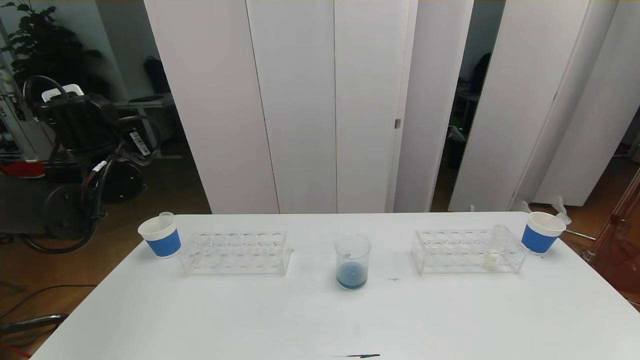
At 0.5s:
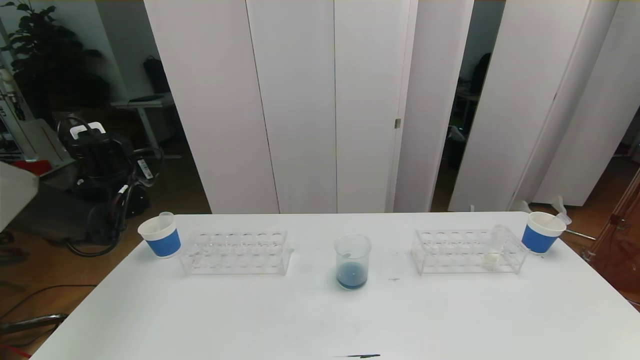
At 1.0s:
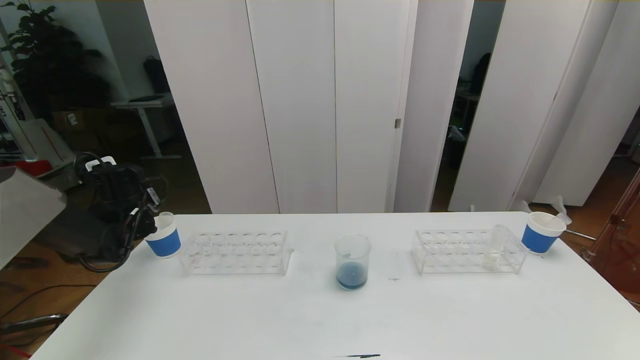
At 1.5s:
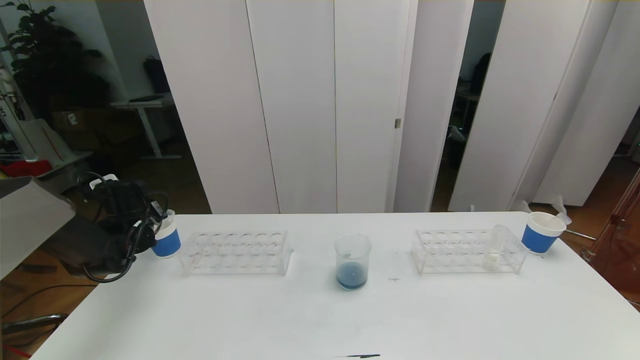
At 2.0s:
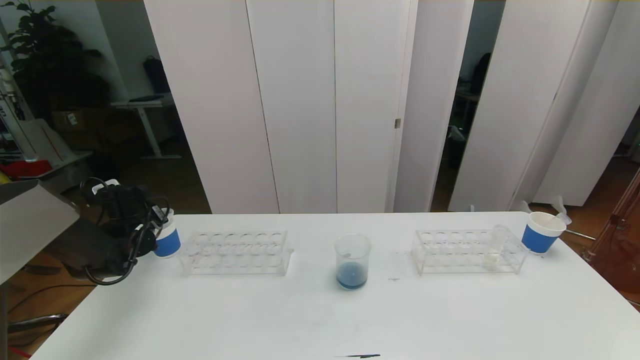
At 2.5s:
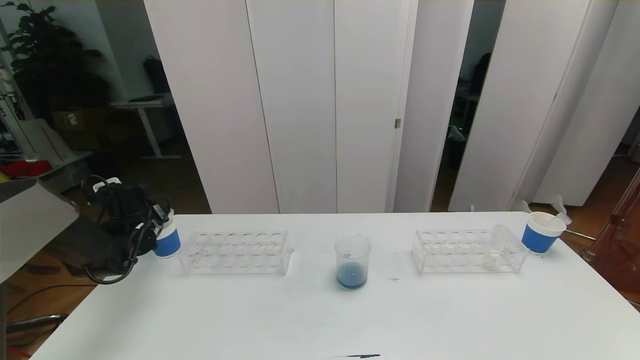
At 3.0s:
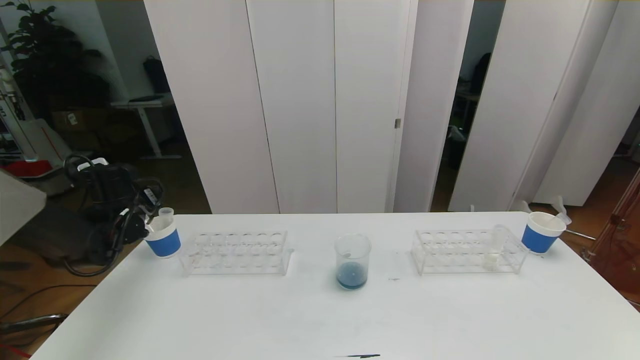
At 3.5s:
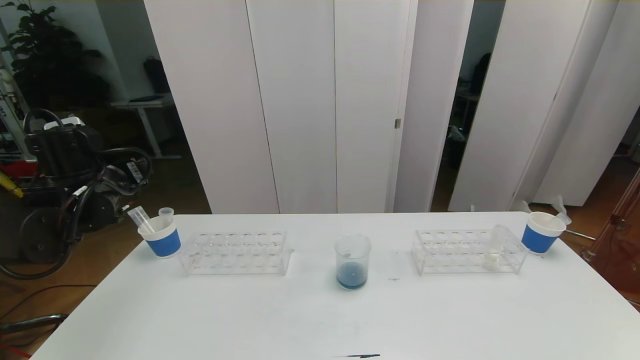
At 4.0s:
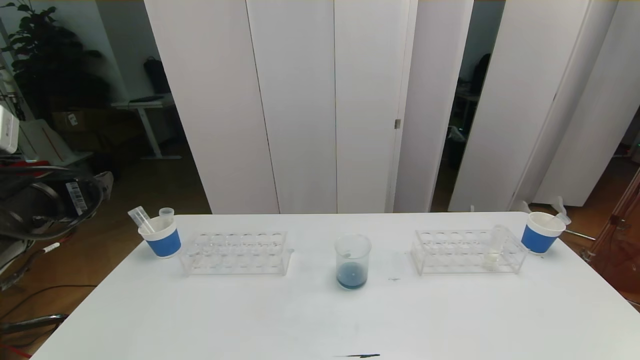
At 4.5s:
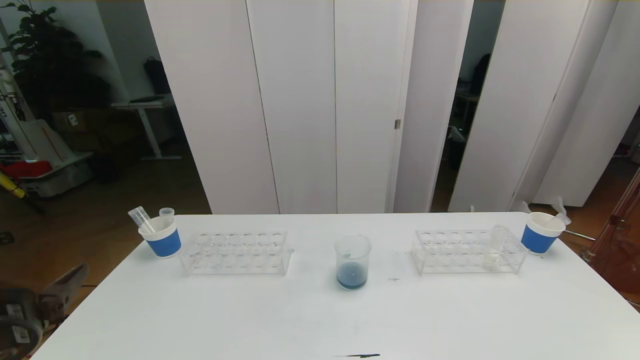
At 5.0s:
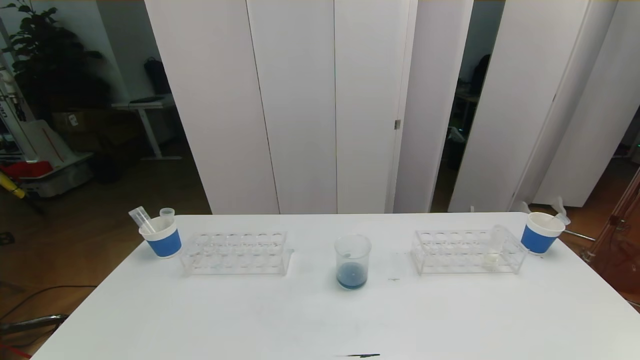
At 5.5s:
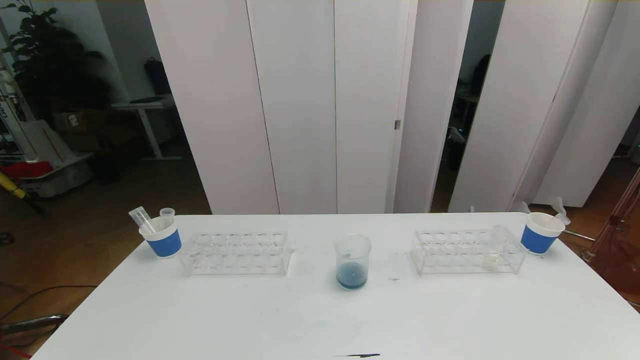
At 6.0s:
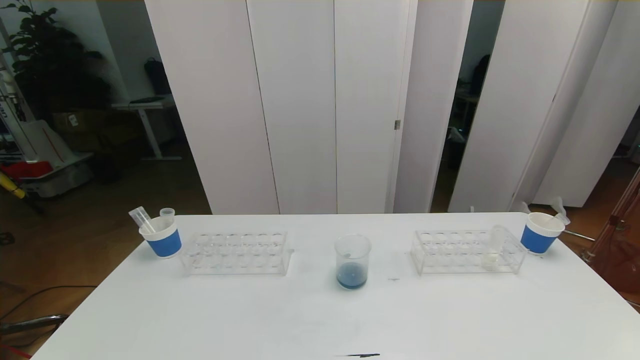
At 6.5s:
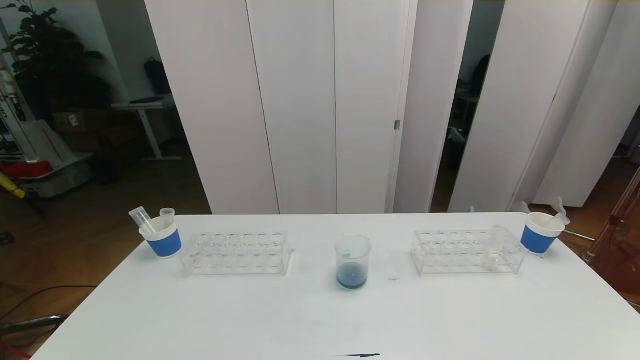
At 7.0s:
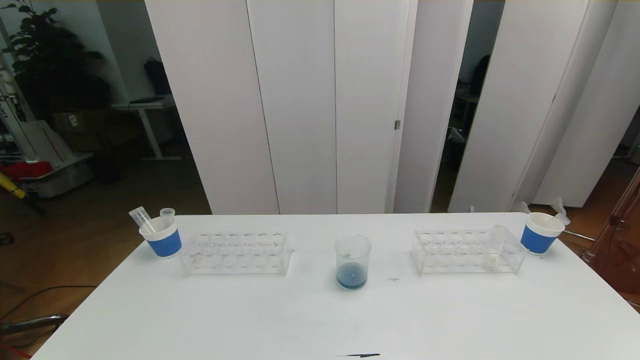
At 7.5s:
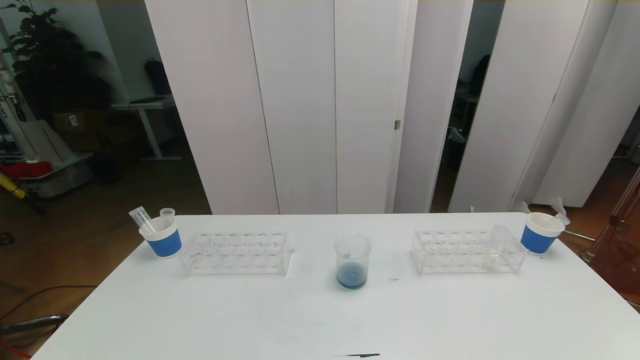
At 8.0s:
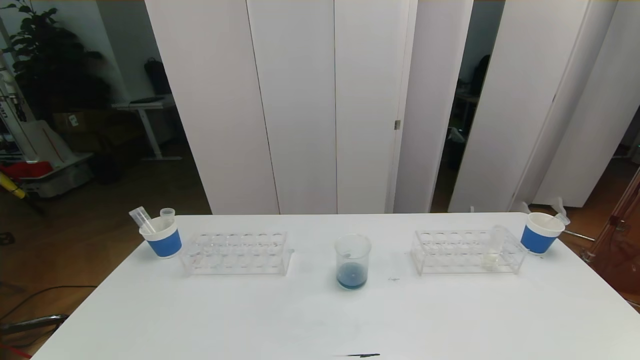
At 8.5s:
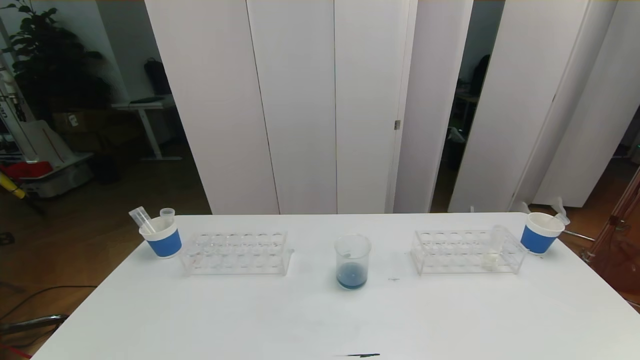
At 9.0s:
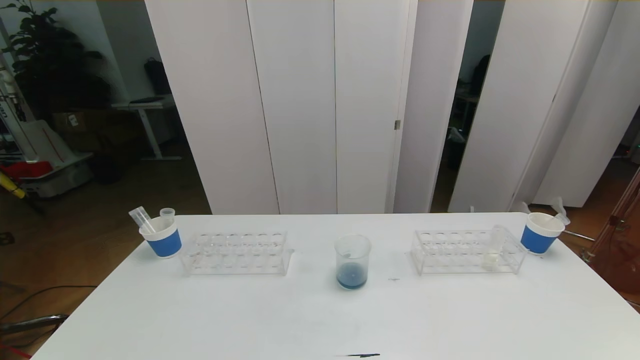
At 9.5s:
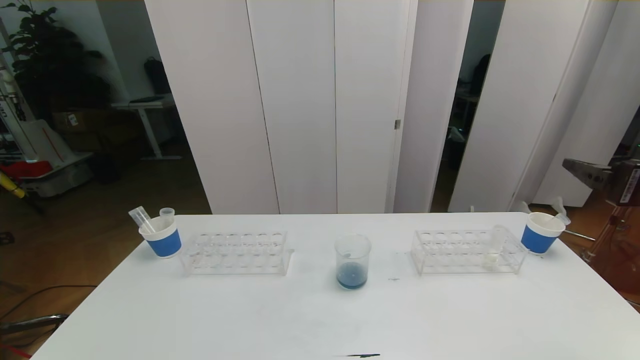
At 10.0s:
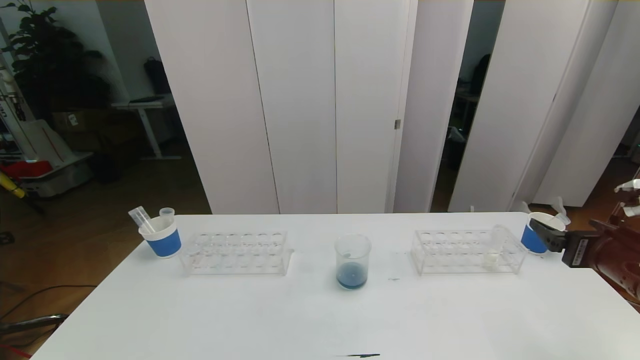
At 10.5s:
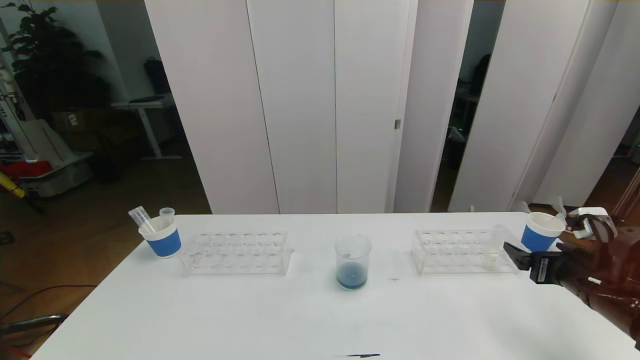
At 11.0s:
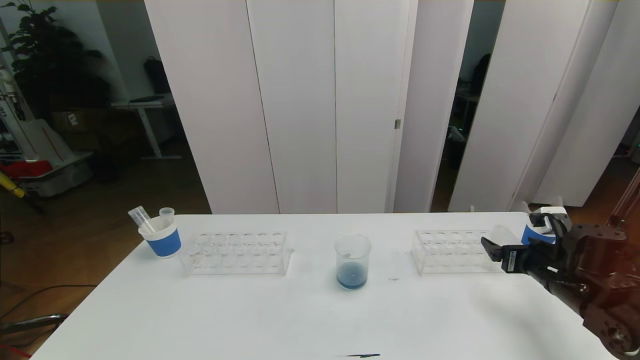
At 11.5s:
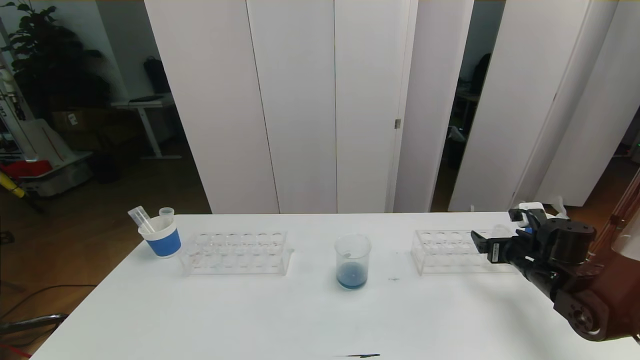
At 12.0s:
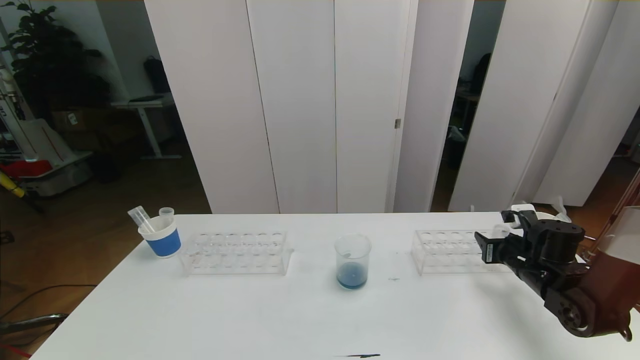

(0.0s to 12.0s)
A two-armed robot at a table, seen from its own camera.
Task of the whole recording: pick up the test tube with red pigment the test tube with blue pigment and the test tube with white pigment by grippers and pour them into the beaker.
Step, 0.0s - 7.0s: Pour the orange reagent into the graduated cylinder and place the test tube into the paper cup.
0.0s - 2.0s: The left gripper heads downward and to the left, covering about 20 cm.
2.0s - 4.0s: The left gripper moves backward, upward and to the right, some 30 cm, and opens its fingers.
4.0s - 6.0s: The left gripper is displaced backward and downward by about 30 cm.
8.0s - 10.0s: The right gripper moves forward, about 25 cm.
10.0s - 12.0s: The right gripper heads forward and downward, covering about 20 cm, and closes its fingers.

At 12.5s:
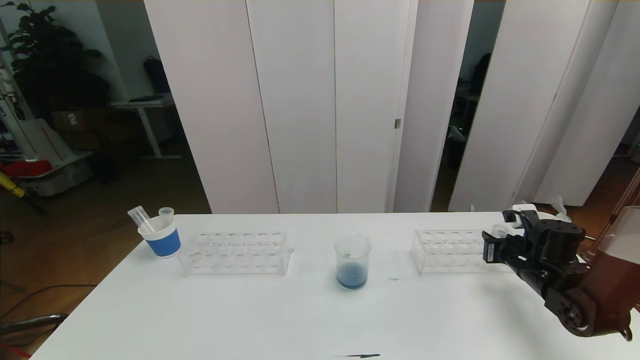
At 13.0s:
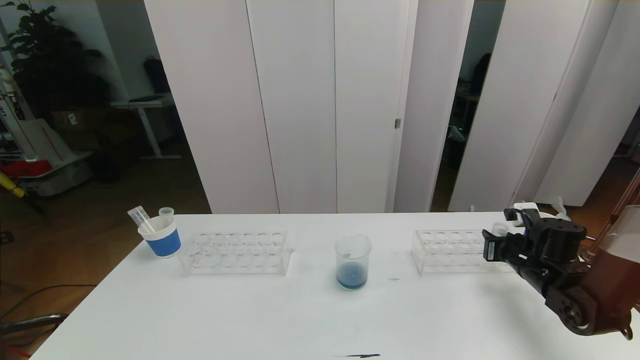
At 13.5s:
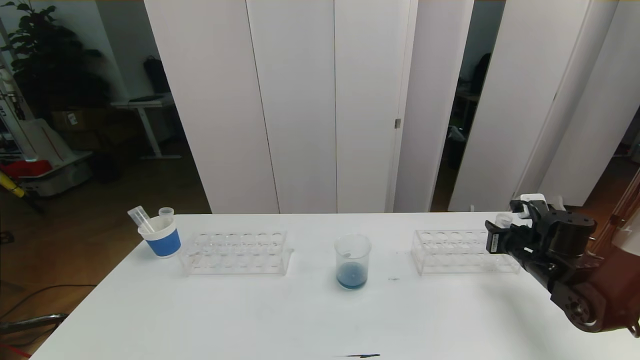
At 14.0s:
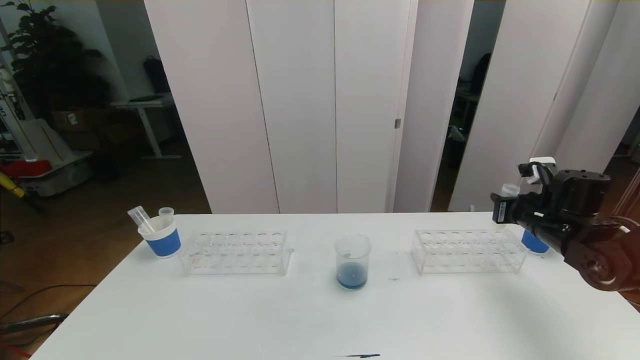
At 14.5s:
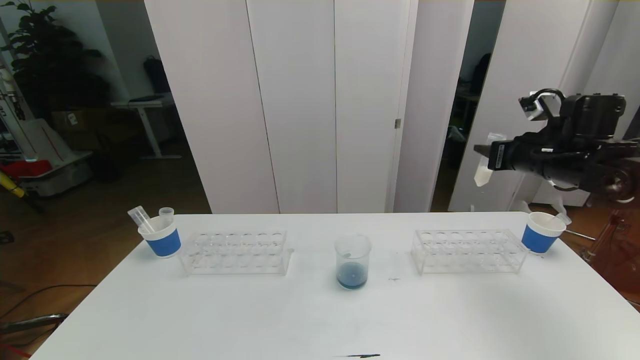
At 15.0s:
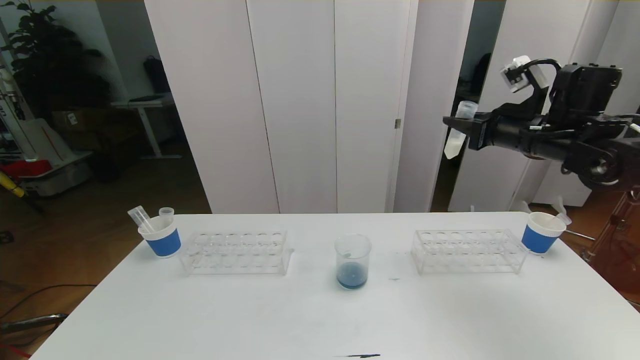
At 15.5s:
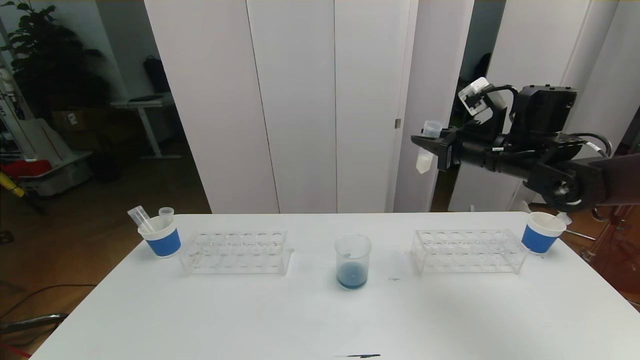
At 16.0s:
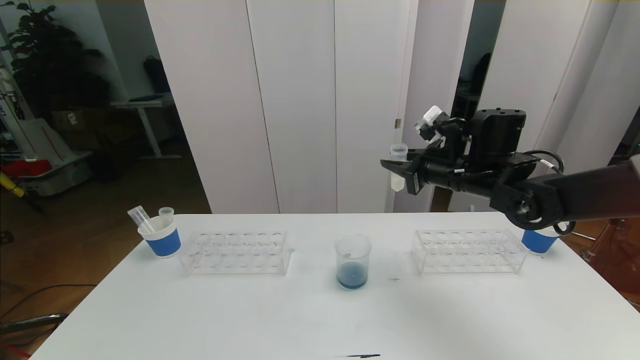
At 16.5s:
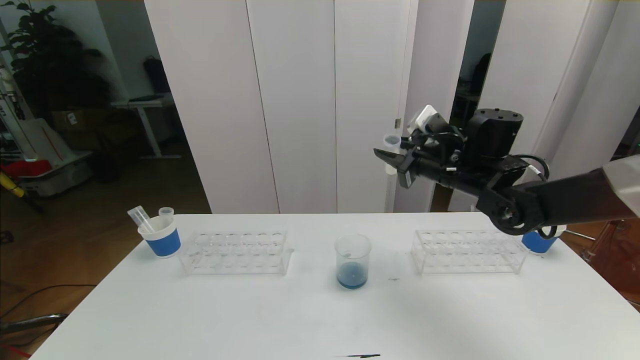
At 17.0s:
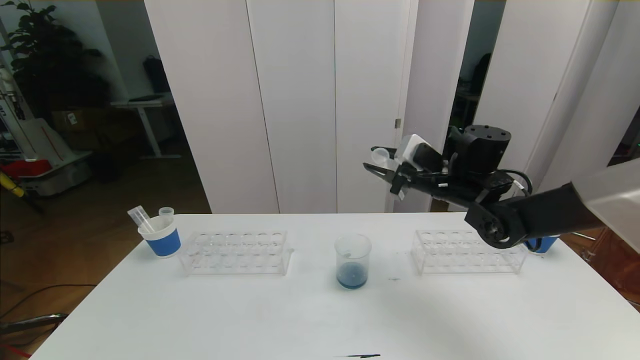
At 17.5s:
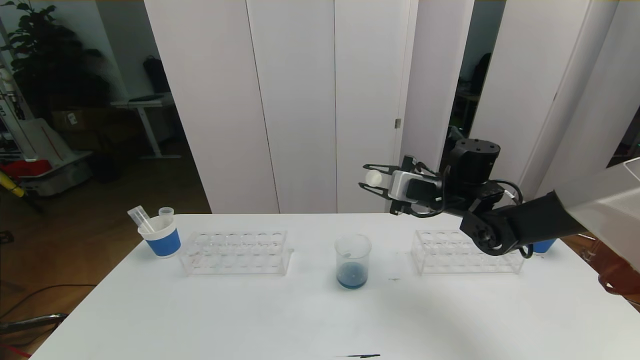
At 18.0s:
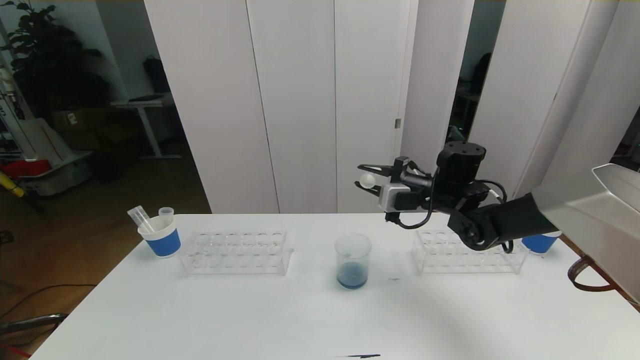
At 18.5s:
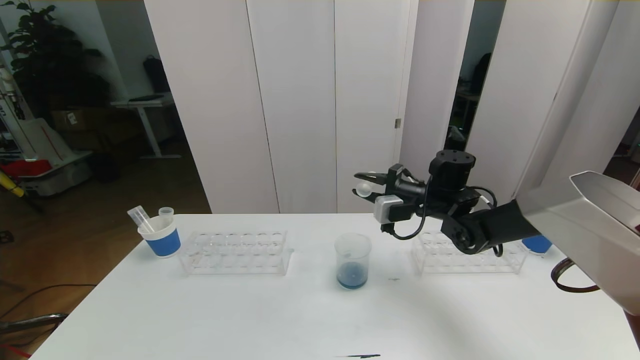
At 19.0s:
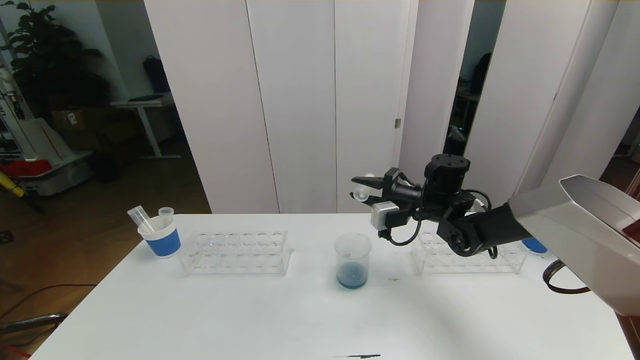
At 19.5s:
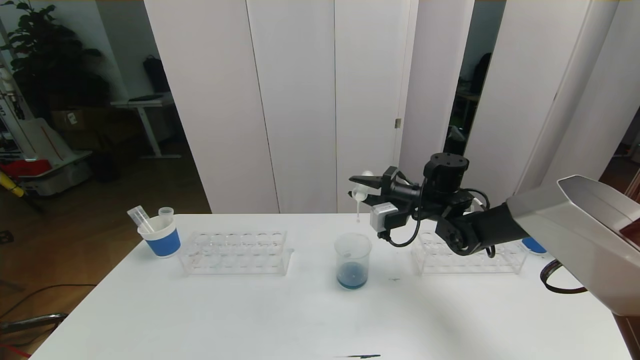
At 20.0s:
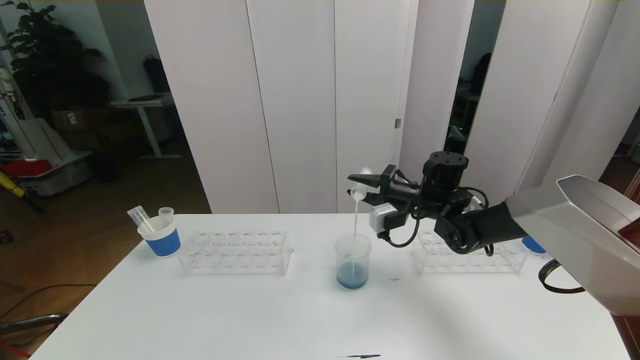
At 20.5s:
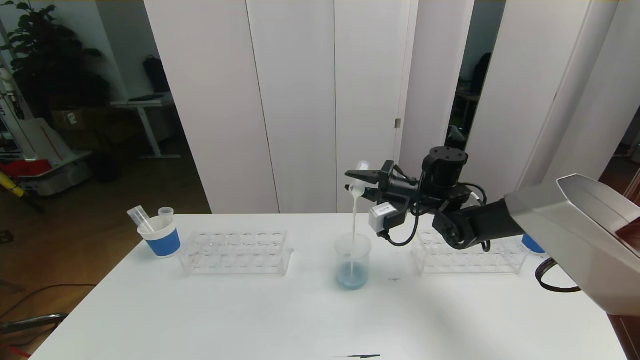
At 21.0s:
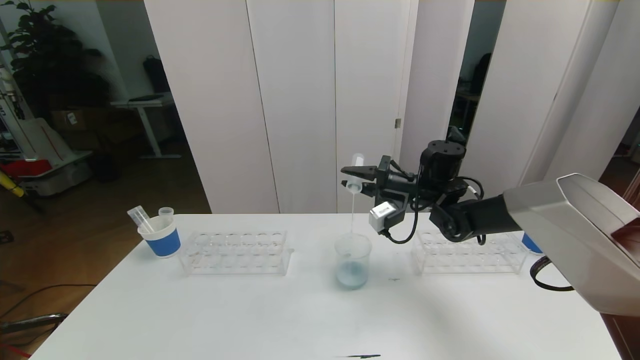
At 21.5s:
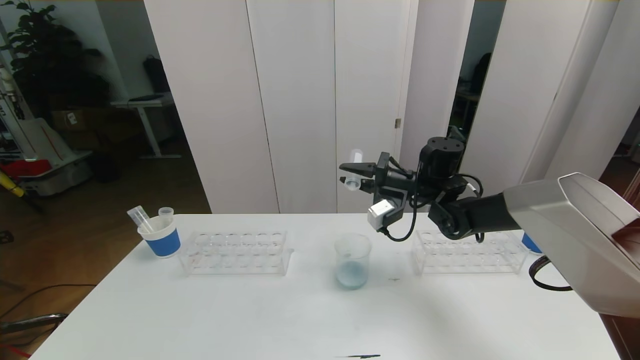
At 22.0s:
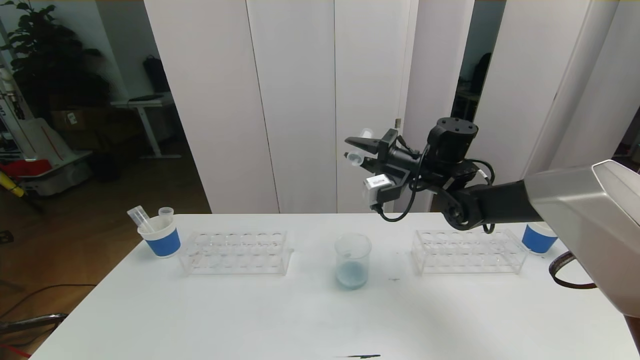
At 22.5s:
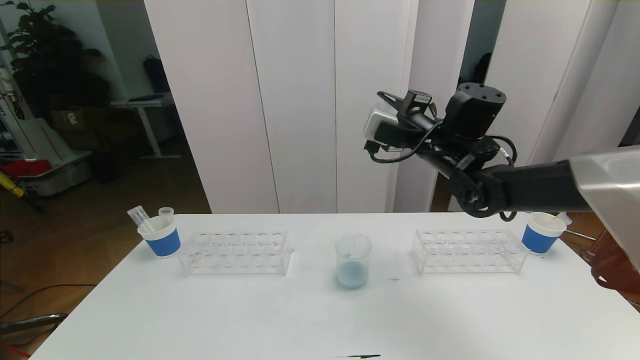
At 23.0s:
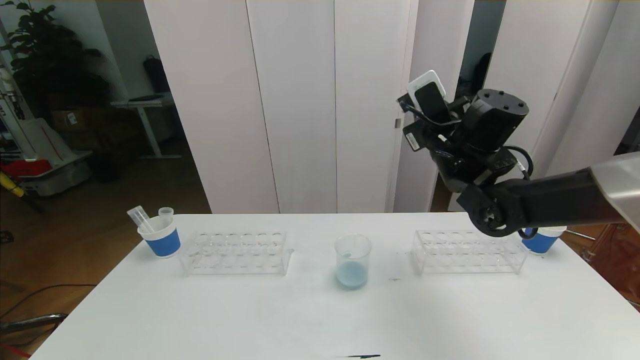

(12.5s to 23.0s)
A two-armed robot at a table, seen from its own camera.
Task of the whole recording: pick up the test tube with red pigment the test tube with blue pigment and the test tube with white pigment by grippers and pour them into the beaker.
12.5s - 14.5s: The right gripper moves upward, about 20 cm.
14.5s - 16.5s: The right gripper travels to the left by approximately 15 cm.
16.5s - 19.0s: The right gripper travels downward by some 10 cm.
21.0s - 23.0s: The right gripper shifts roughly 10 cm upward and backward.
